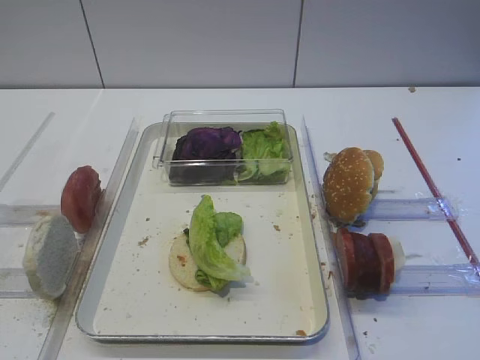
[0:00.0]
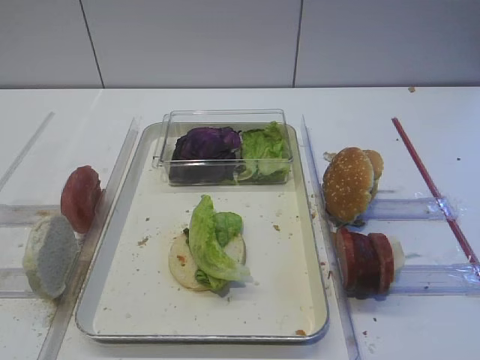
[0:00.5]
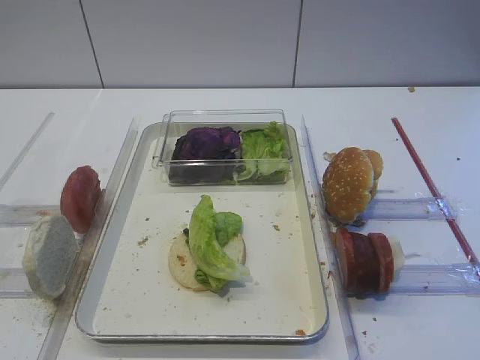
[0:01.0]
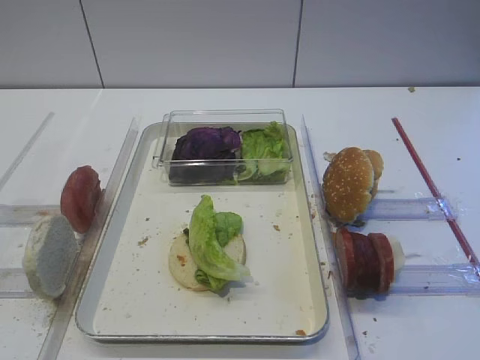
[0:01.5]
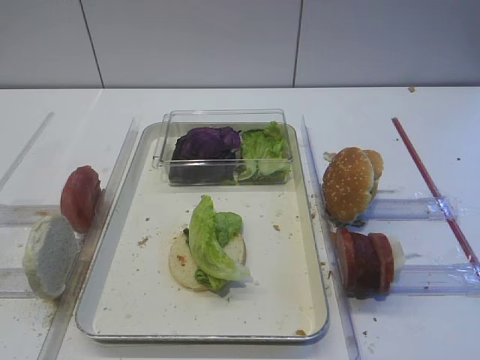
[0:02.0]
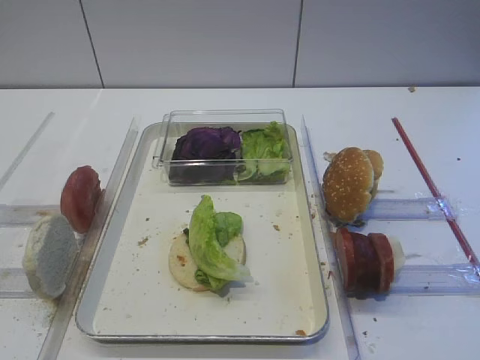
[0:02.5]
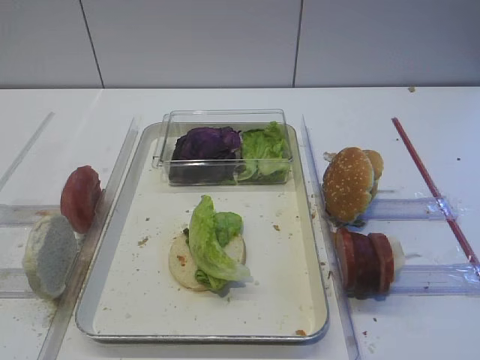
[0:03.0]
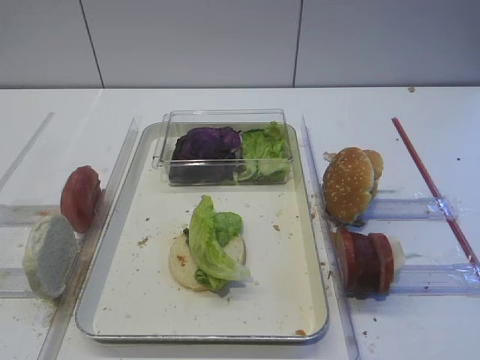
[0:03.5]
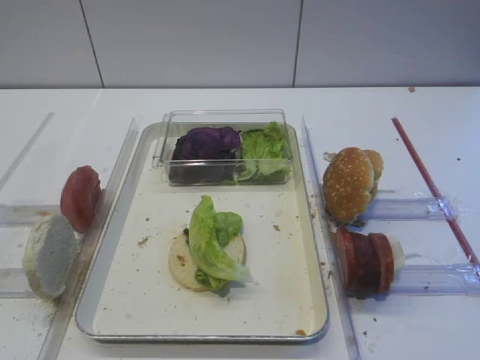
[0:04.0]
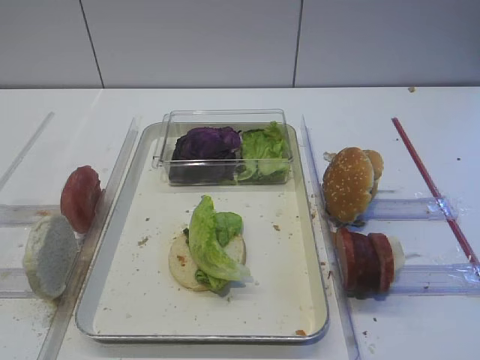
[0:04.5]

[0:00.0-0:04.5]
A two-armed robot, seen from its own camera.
0:00.0 to 0:04.5: Both grippers stay put.

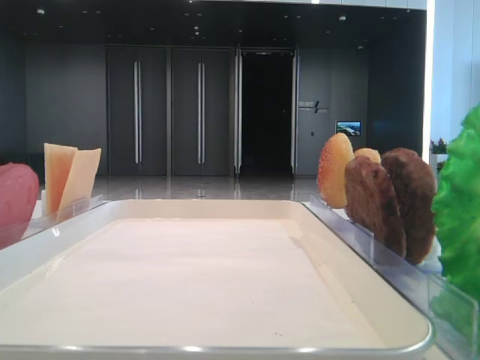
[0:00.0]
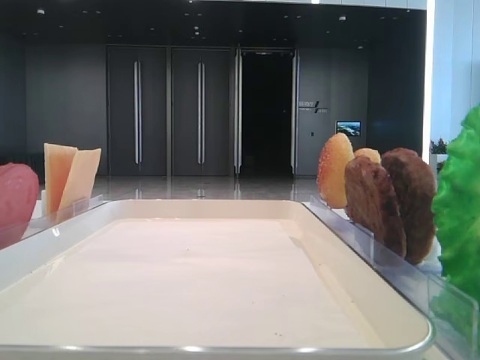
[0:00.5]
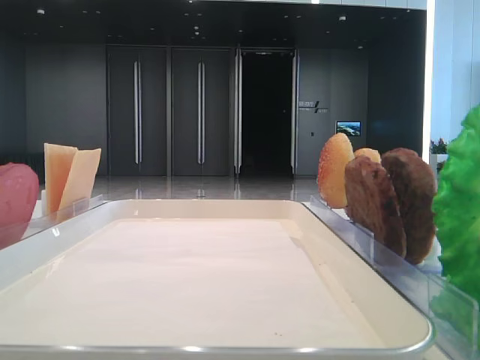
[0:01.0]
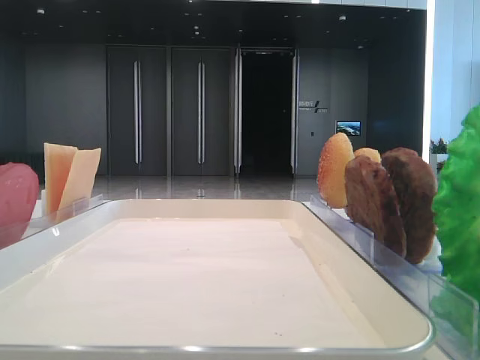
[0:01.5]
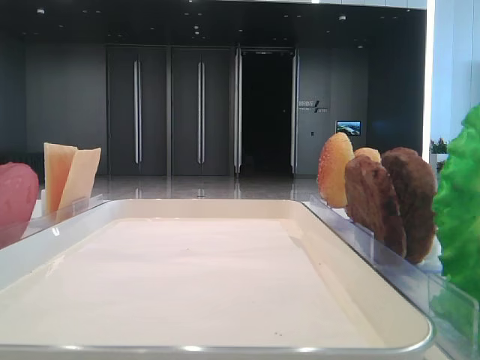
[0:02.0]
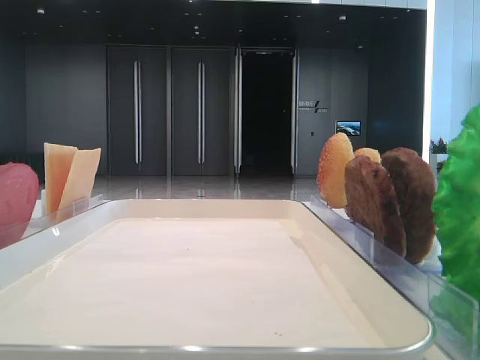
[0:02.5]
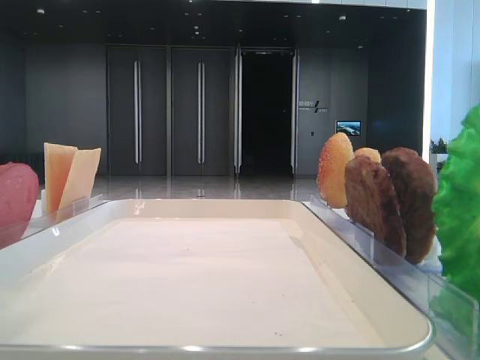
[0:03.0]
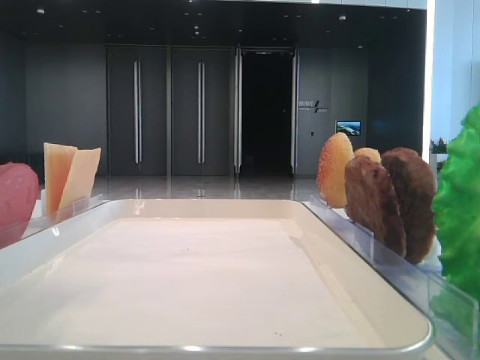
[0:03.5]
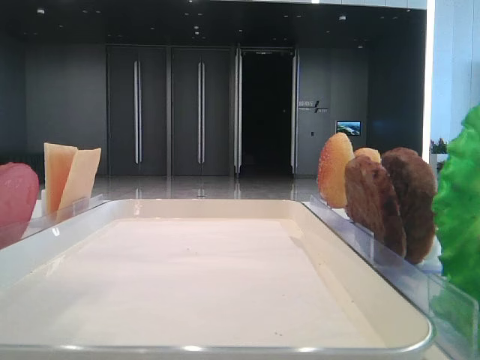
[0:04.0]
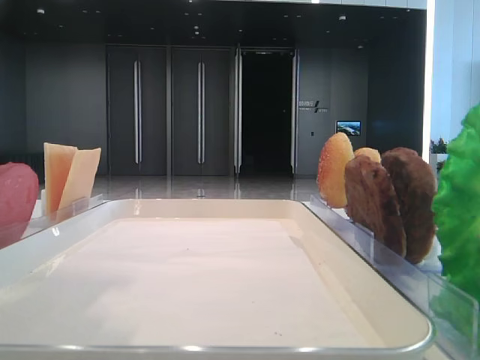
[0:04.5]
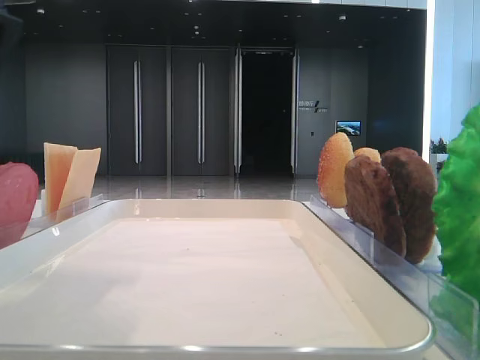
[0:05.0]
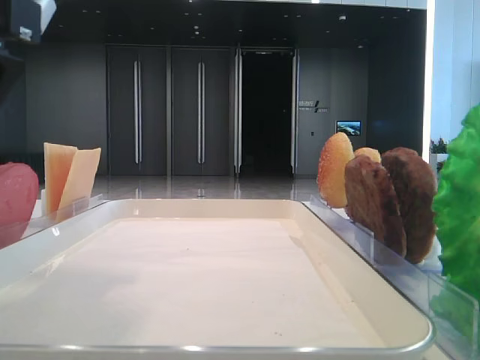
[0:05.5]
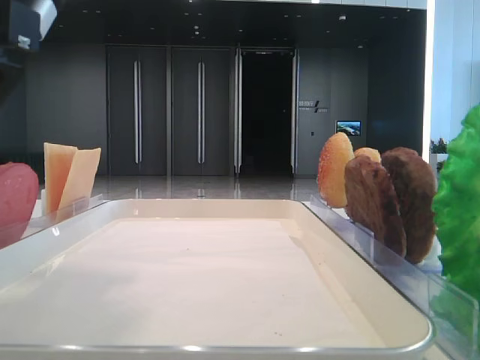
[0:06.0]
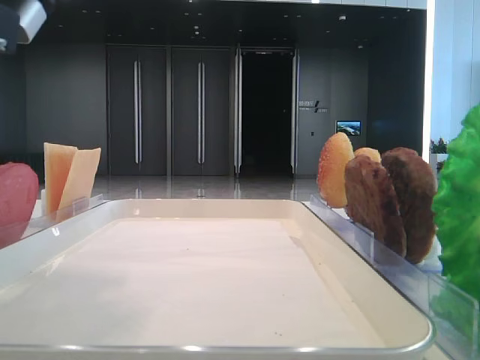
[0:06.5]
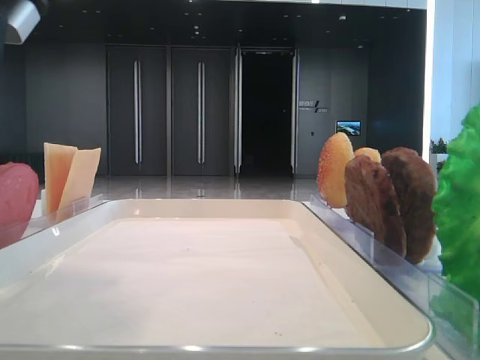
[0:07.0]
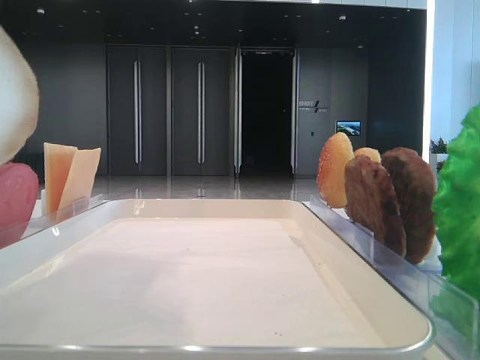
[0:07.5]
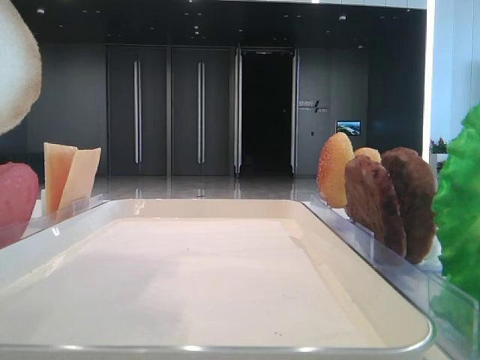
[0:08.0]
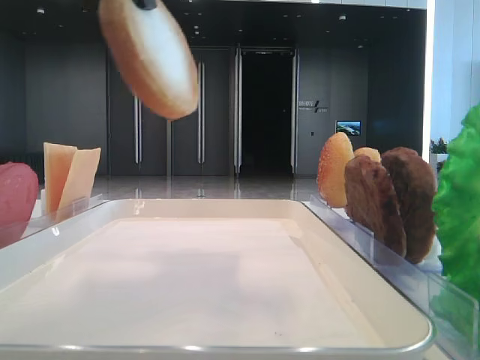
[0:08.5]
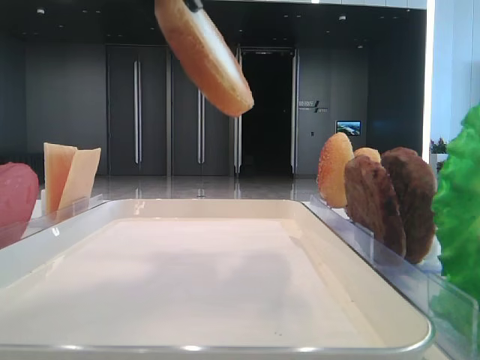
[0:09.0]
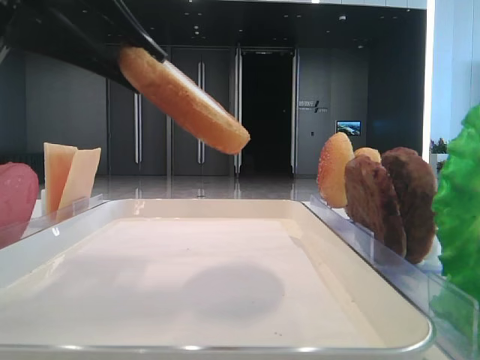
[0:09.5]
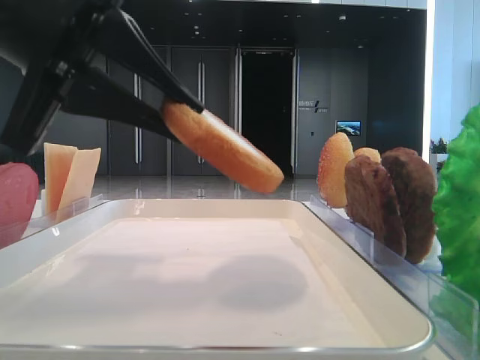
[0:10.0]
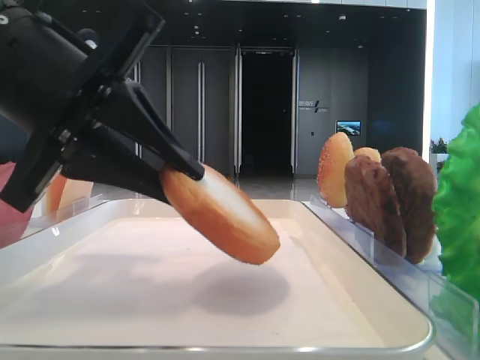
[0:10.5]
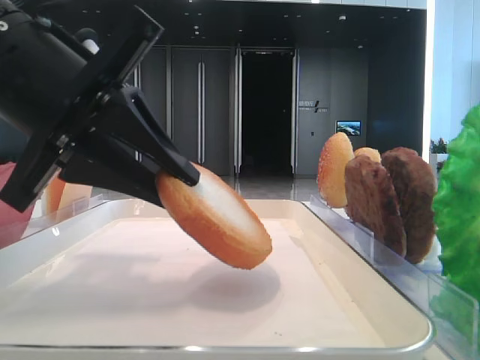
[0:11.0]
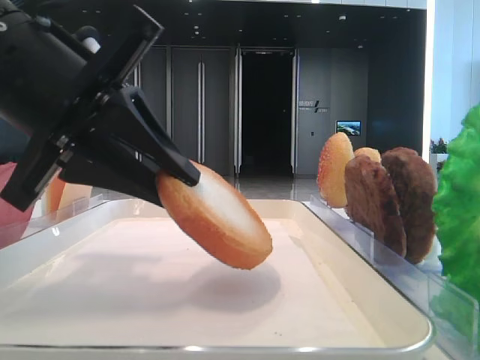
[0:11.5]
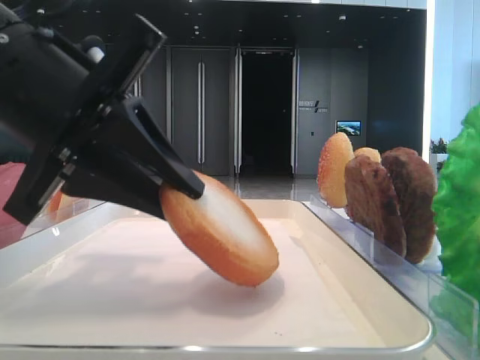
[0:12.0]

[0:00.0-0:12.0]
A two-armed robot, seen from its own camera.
Step, 0:00.0 to 0:06.5: Pick up the bottom bread with the left hand.
0:02.0 to 0:04.0: The left gripper is displaced to the right by approximately 15 cm, and opens its fingers.
0:04.0 to 0:06.0: The left gripper heads downward, covering roughly 5 cm.
0:06.0 to 0:08.0: The left gripper goes roughly 10 cm upward, and closes its fingers.
0:08.0 to 0:10.0: The left gripper shifts some 15 cm downward.
0:10.0 to 0:12.0: There are only small adjustments of the grippers.

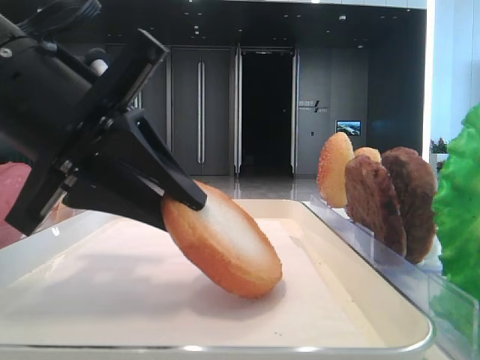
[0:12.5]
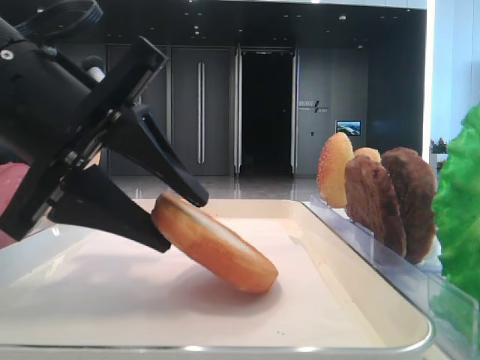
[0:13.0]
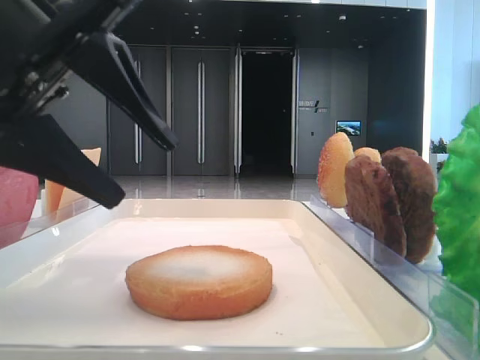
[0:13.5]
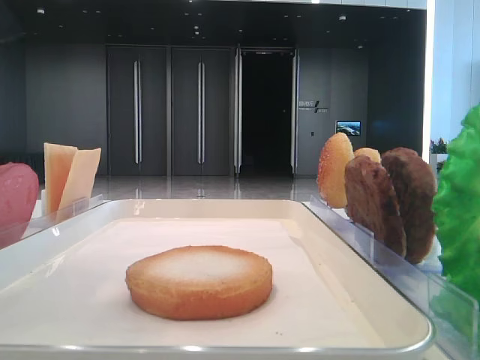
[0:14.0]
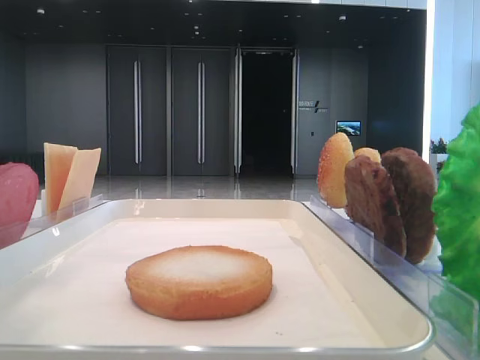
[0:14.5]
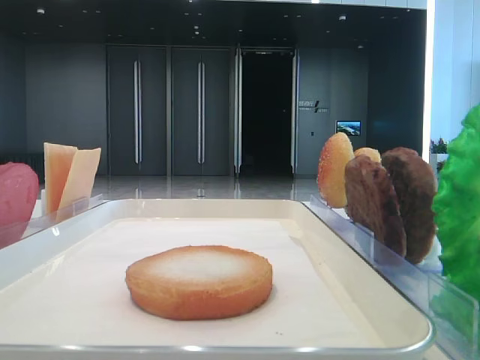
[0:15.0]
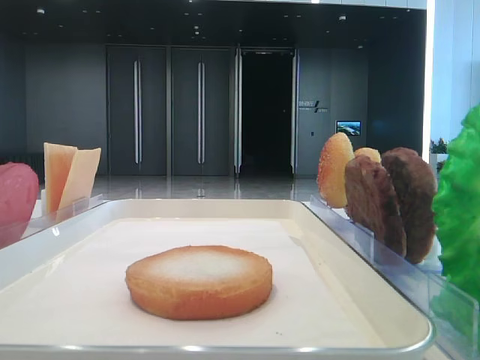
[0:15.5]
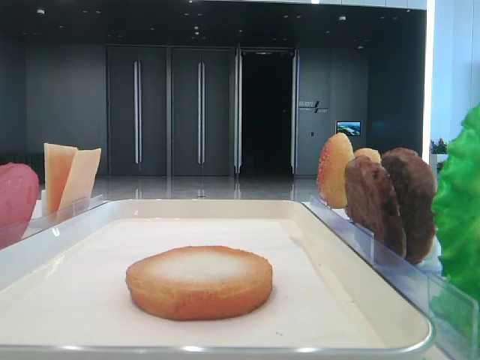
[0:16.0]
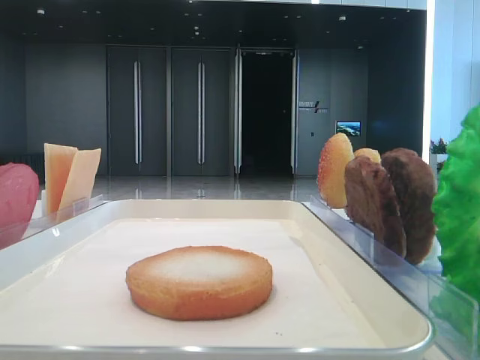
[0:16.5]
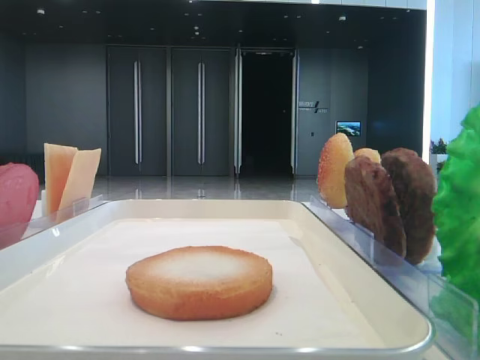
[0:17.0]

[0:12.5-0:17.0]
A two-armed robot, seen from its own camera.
0:12.5 to 0:14.5: The left gripper goes roughly 20 cm upward and to the left, and opens.

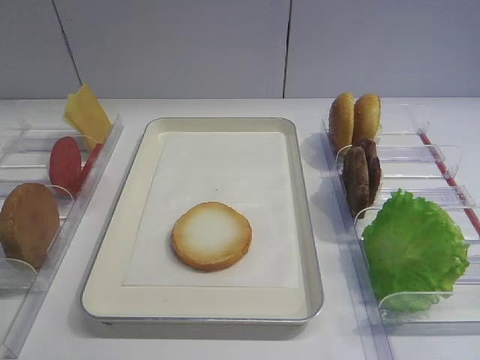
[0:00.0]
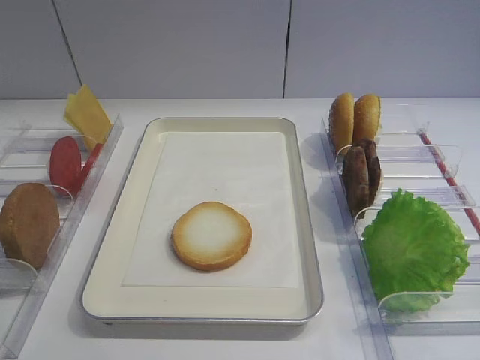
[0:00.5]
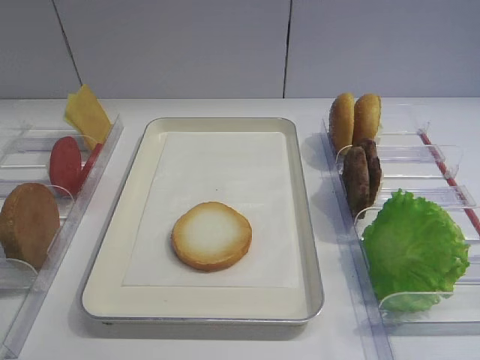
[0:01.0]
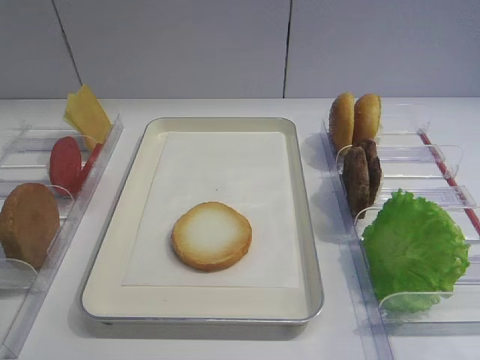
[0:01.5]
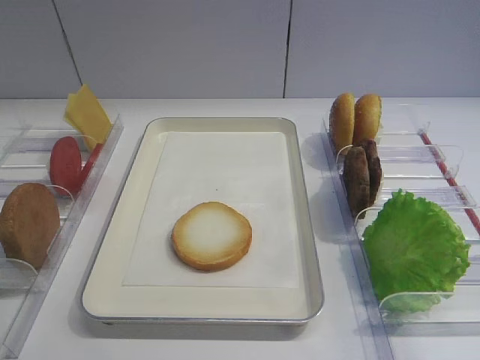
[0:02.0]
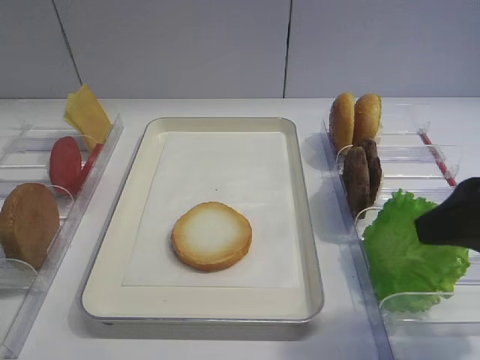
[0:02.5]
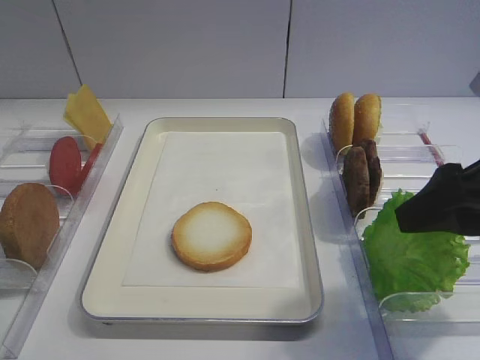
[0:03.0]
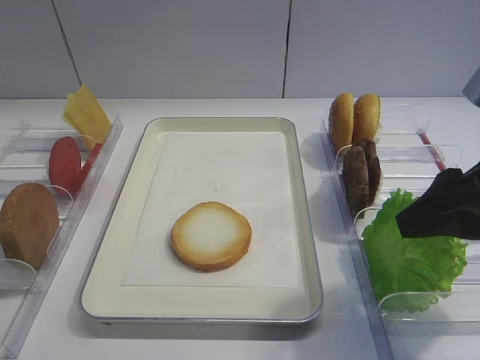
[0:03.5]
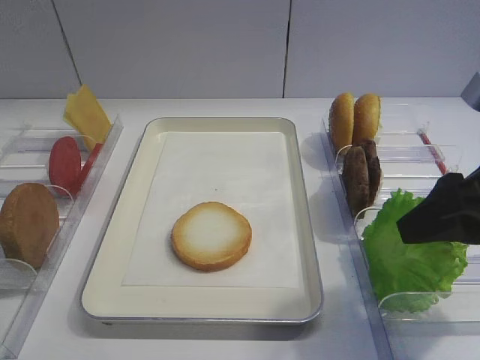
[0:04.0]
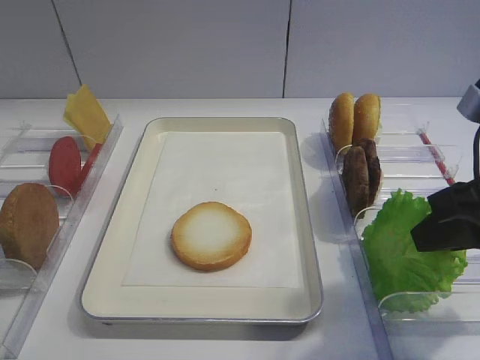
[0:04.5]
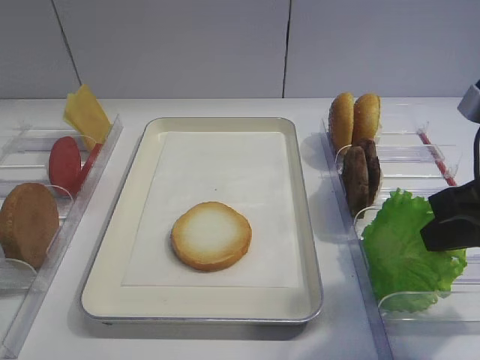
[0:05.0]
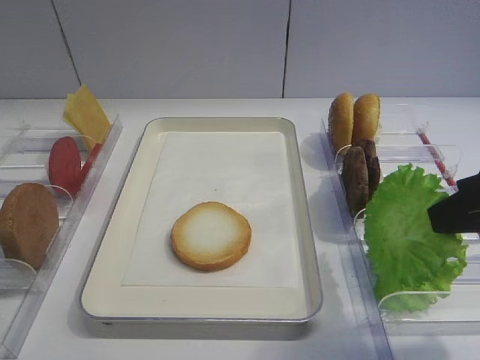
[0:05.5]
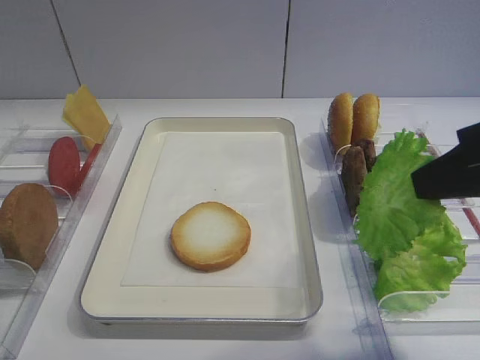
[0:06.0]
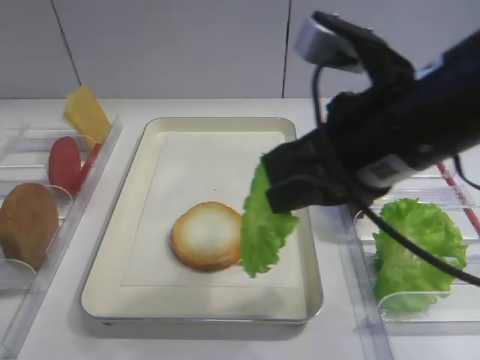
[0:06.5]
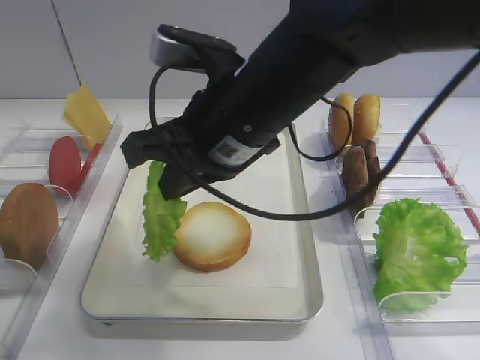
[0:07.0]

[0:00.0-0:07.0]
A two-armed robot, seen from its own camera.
Step, 0:00.0 to 0:05.5: Pick up the lettuce leaf with the right gripper.
0:02.0 to 0:03.5: The right gripper shifts roughly 10 cm forward.
0:03.5 to 0:05.0: The right gripper closes.
0:05.0 to 0:07.0: The right gripper moves to the left, some 20 cm.
